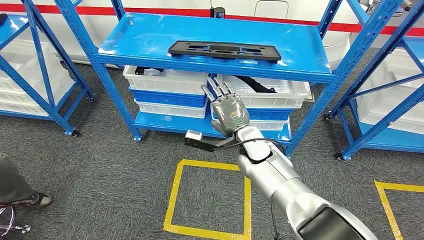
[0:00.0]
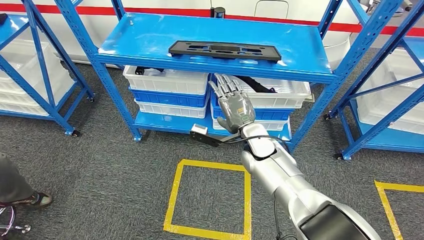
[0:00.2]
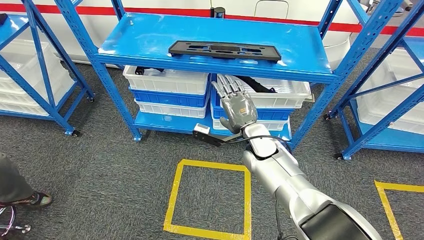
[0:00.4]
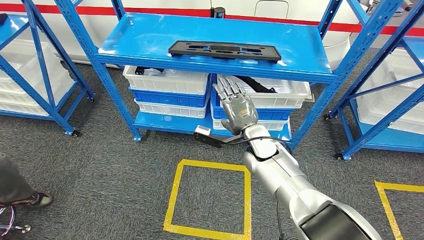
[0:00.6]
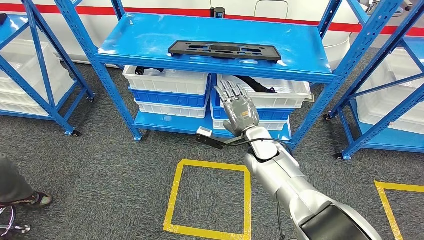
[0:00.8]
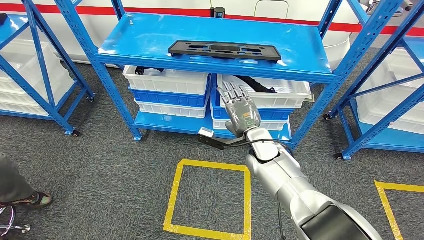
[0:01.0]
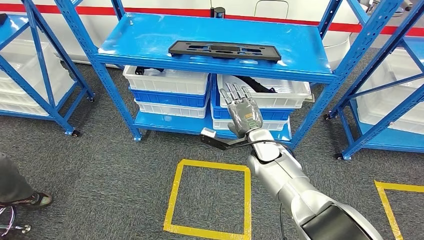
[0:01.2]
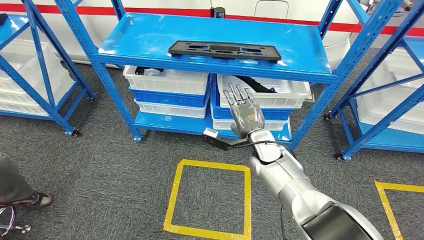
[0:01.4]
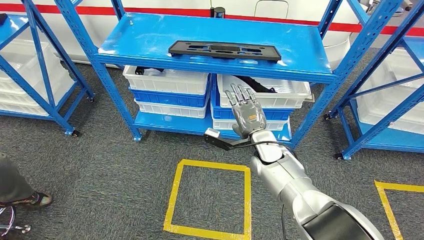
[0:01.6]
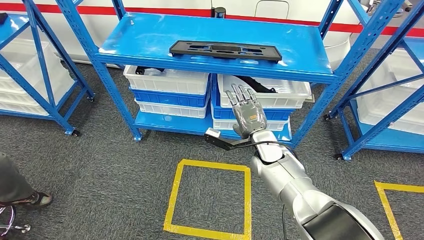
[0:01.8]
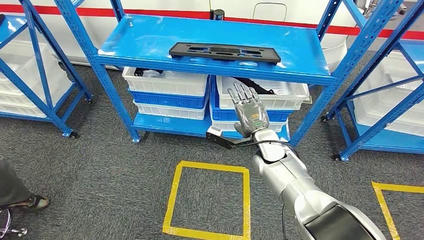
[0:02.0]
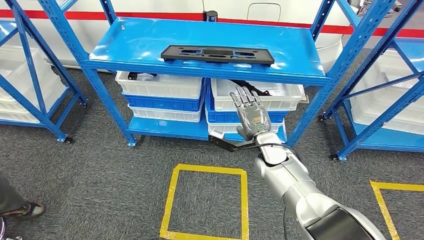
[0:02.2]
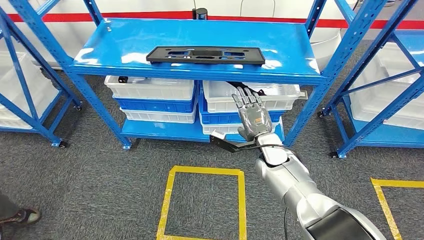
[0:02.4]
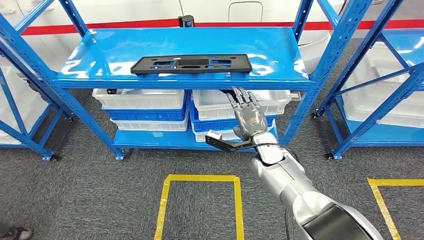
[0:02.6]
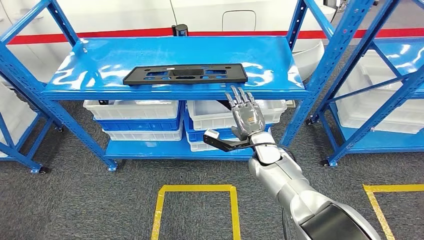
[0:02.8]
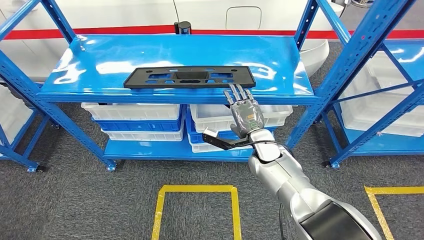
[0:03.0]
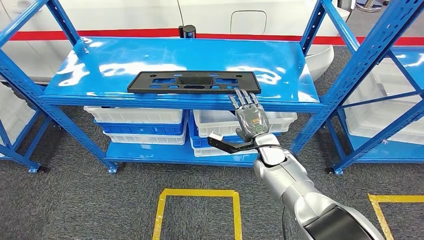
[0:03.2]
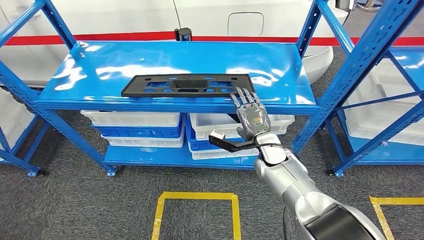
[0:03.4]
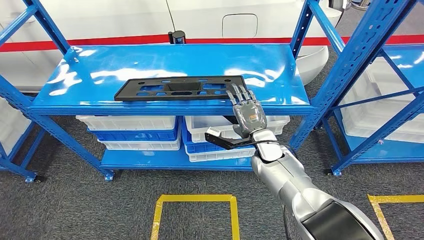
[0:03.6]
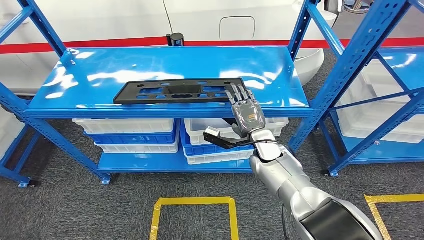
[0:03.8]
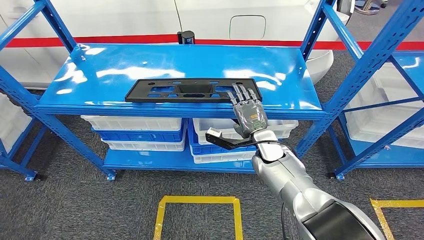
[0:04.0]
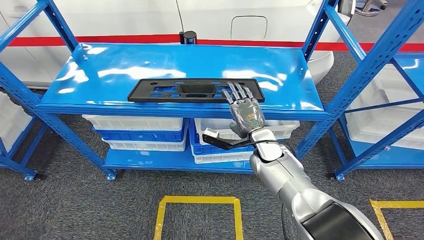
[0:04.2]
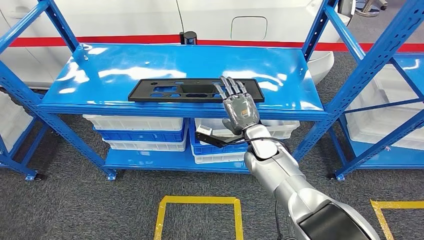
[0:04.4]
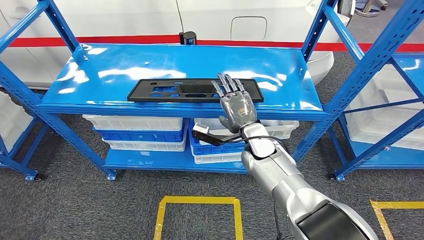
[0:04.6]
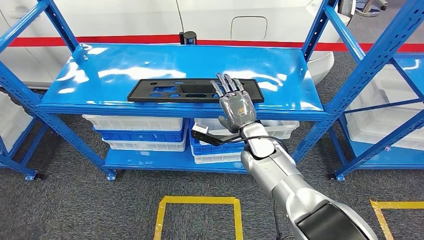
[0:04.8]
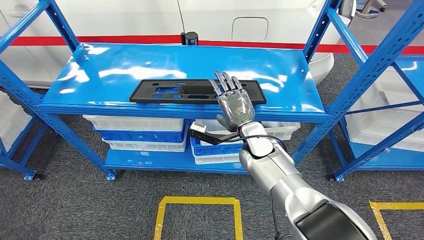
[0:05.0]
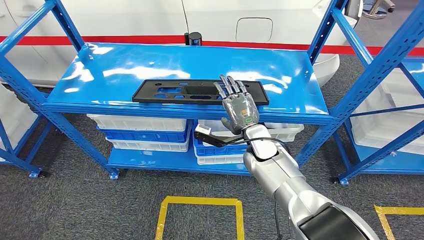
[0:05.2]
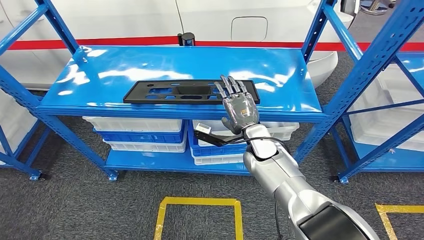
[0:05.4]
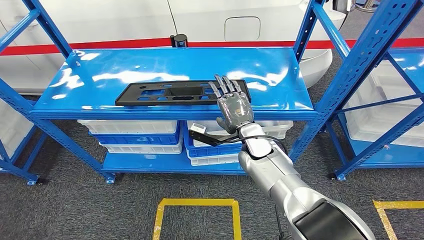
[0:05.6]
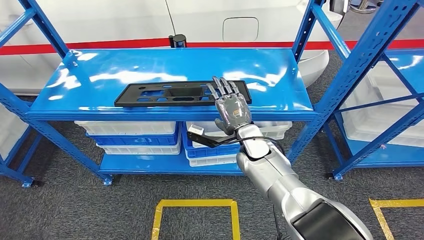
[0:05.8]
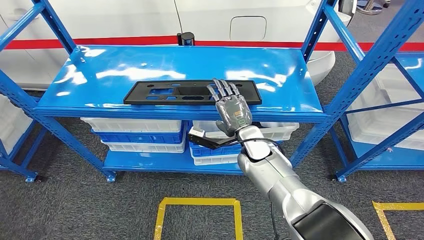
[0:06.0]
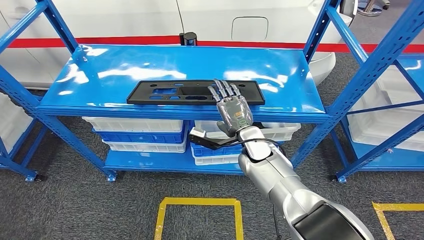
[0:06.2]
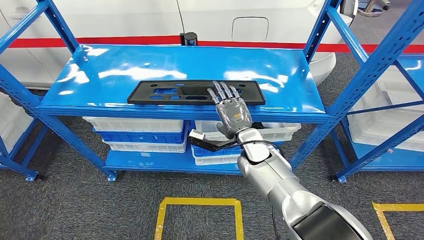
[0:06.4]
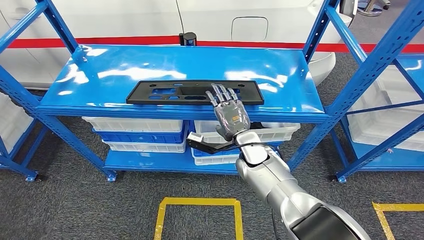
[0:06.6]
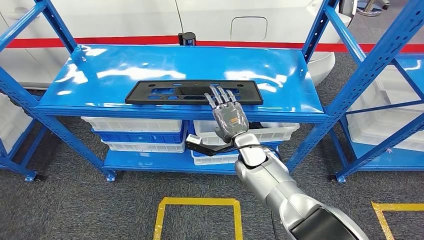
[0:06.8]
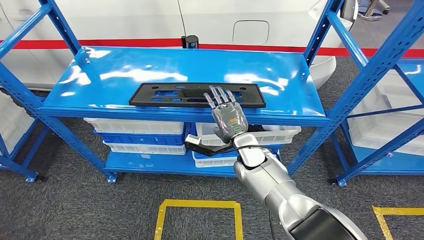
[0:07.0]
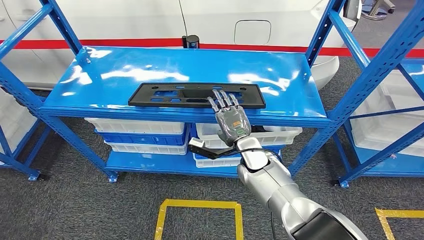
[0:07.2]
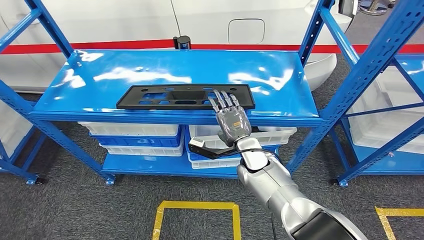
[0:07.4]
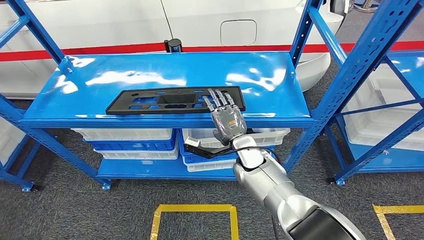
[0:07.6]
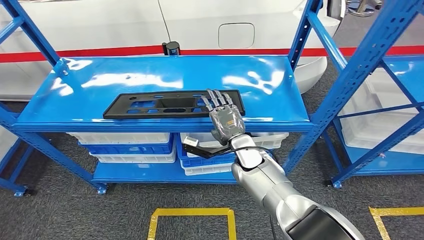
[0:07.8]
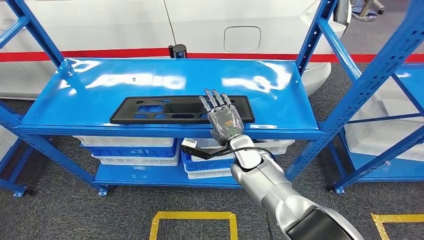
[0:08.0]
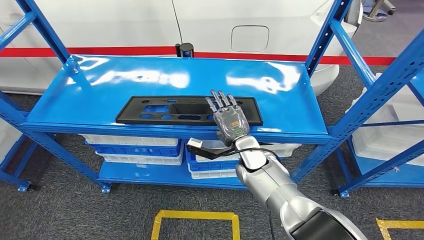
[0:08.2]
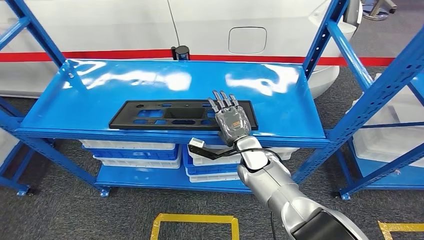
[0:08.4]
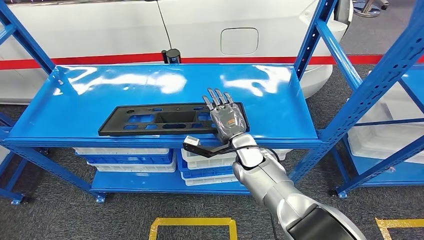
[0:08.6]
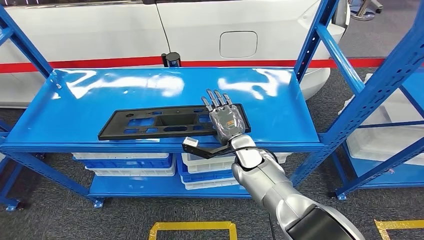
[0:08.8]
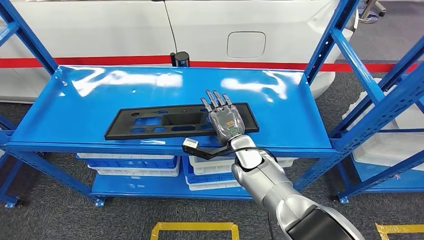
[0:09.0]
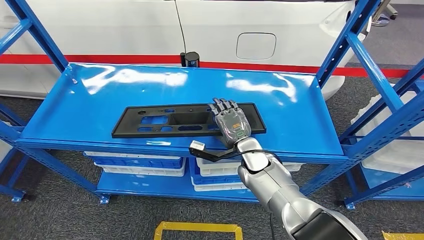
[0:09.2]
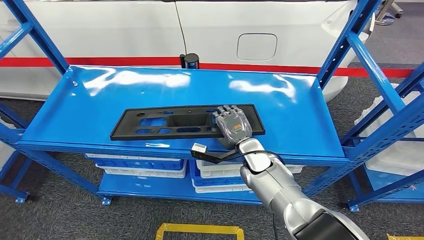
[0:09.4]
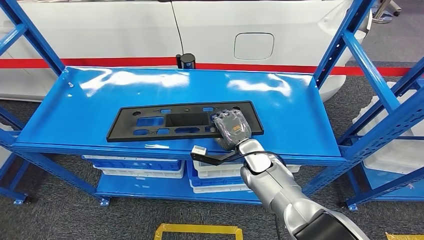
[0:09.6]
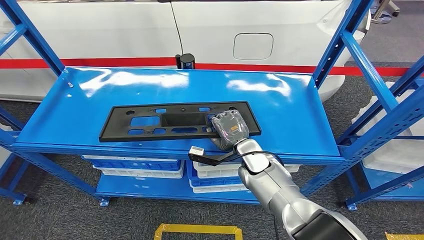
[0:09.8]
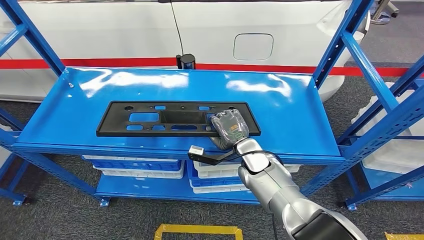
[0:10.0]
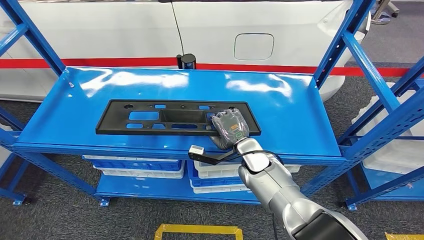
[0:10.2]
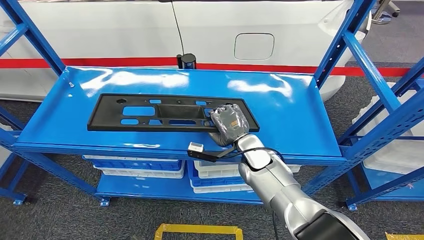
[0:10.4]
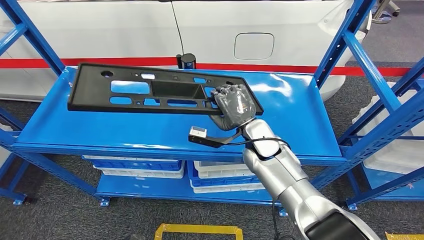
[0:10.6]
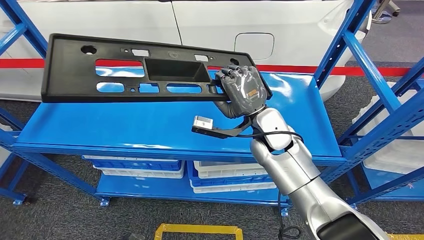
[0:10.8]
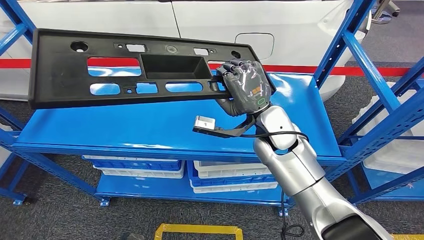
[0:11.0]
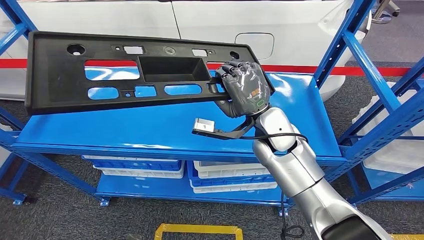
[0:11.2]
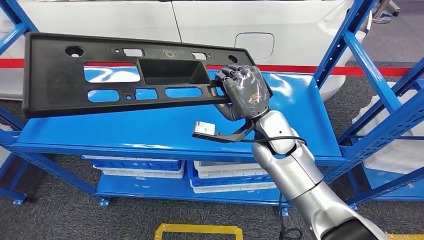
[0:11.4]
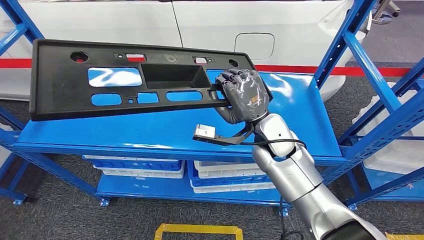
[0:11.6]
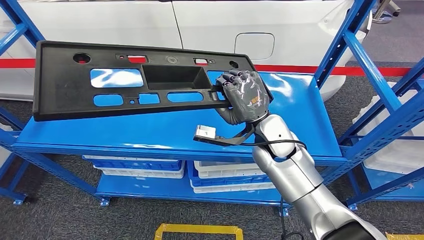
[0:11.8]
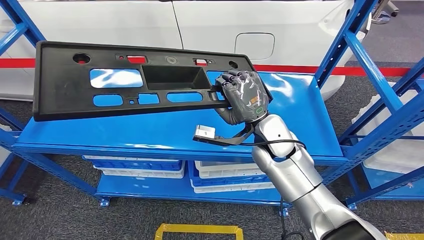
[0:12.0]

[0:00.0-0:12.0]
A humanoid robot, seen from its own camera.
Step, 0:00.0 to 0:11.2: Pick up the large material from the shelf.

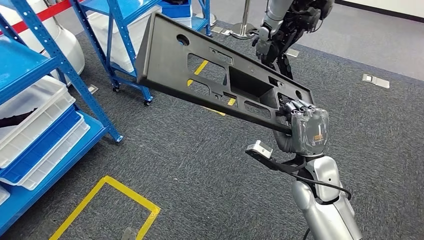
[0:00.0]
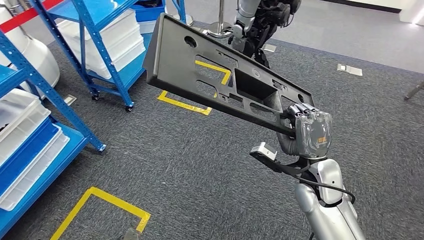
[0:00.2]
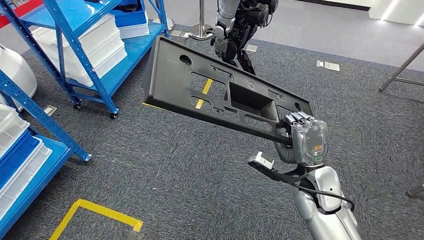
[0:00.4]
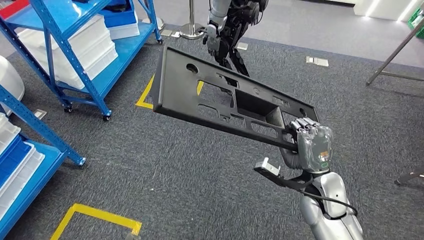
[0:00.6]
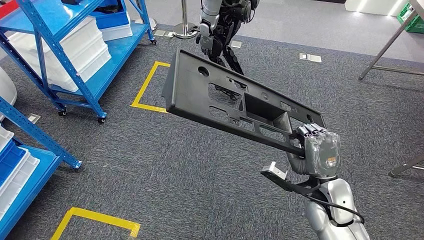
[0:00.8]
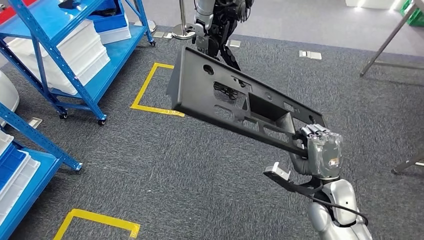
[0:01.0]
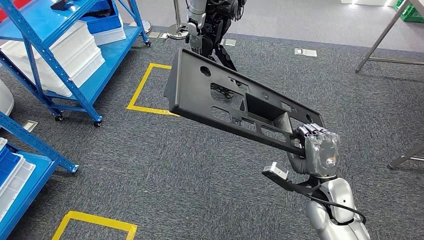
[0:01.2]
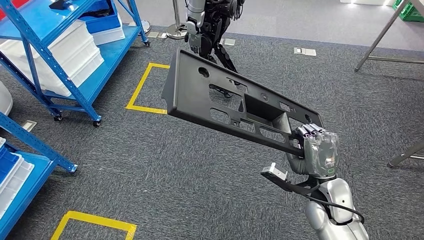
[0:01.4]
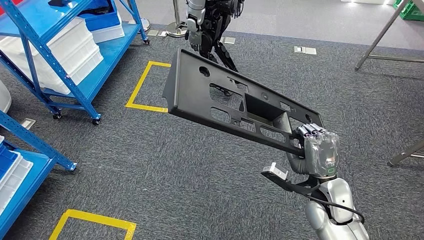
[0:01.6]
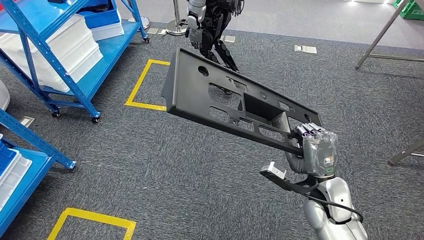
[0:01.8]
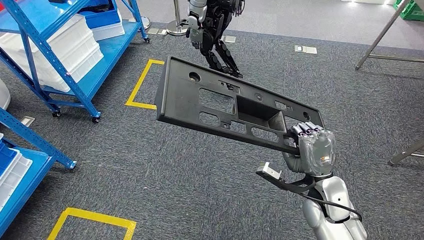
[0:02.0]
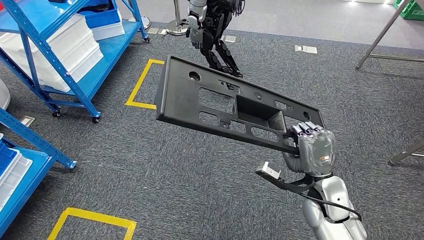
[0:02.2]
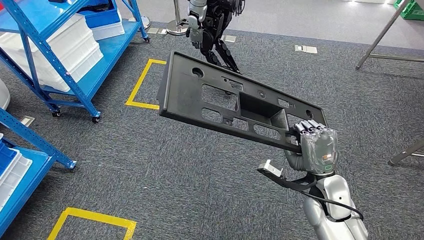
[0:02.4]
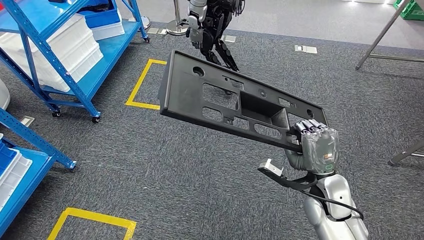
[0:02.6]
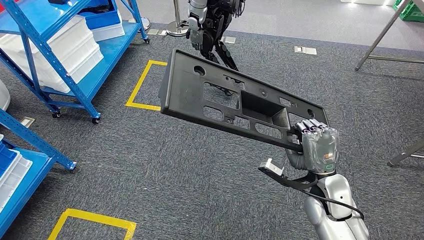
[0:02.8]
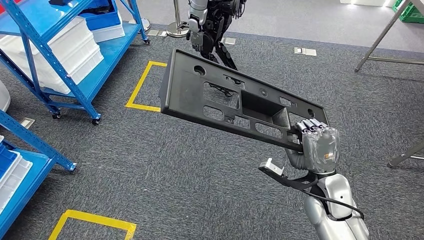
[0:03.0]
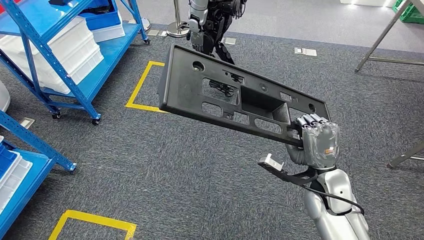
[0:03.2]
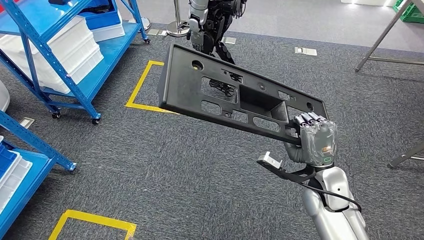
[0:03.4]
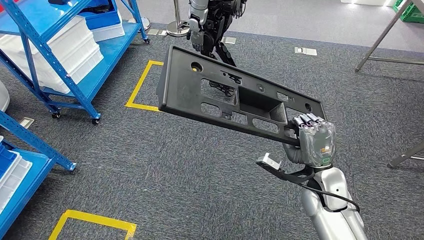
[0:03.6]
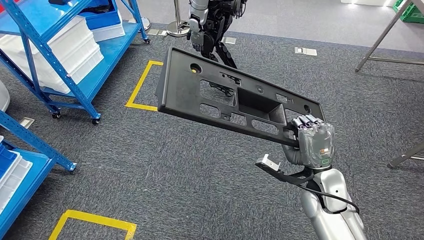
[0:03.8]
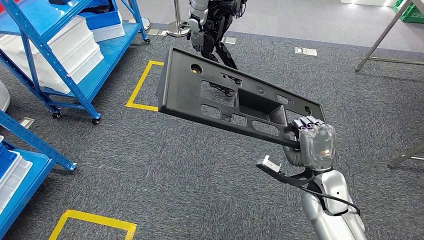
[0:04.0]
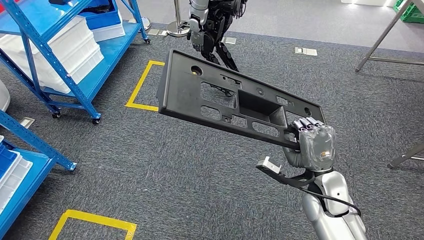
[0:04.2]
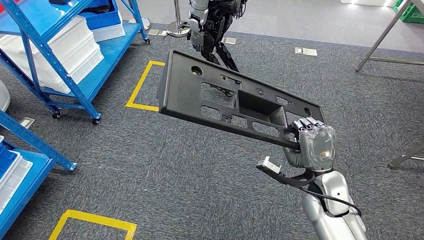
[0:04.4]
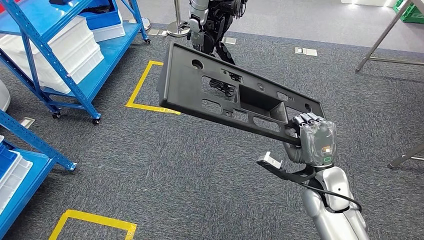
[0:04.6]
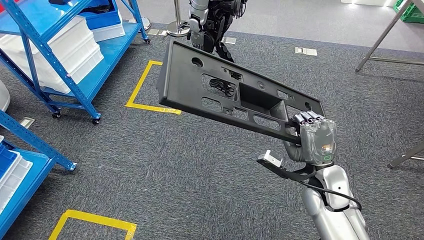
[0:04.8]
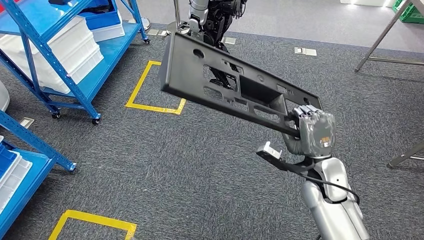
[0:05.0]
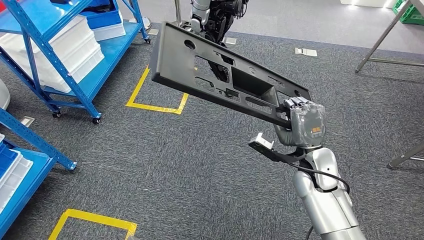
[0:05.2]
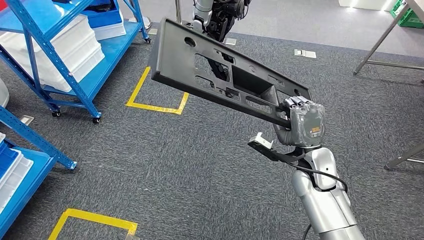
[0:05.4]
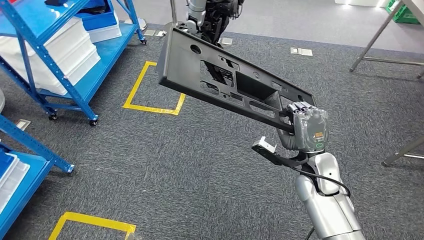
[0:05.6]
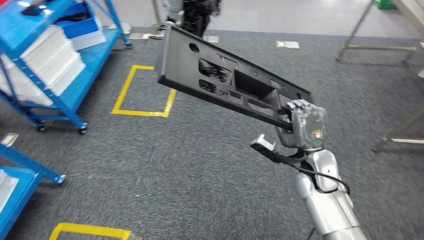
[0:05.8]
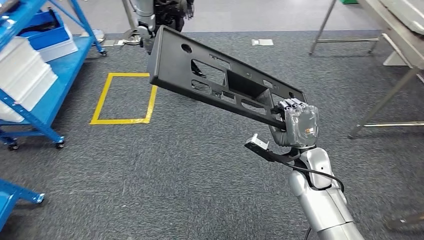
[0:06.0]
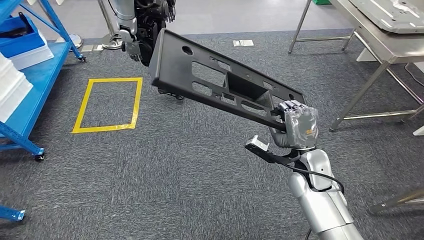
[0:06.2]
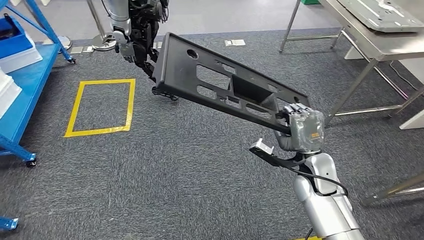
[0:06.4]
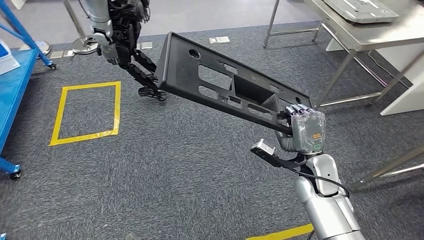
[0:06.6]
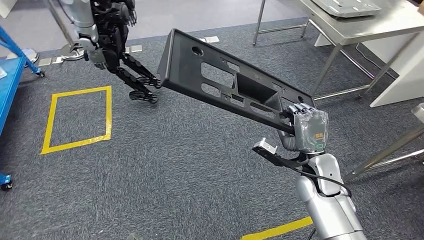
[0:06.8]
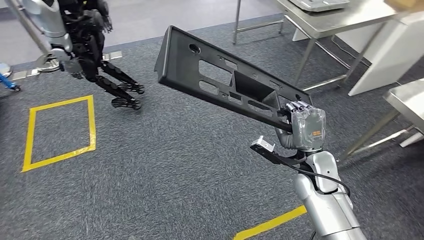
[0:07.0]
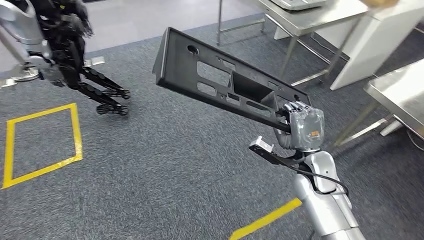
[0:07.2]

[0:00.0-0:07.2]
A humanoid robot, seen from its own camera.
0:01.4 to 0:04.4: The hands make only small movements.
